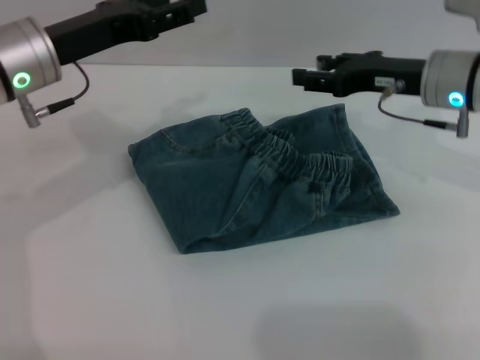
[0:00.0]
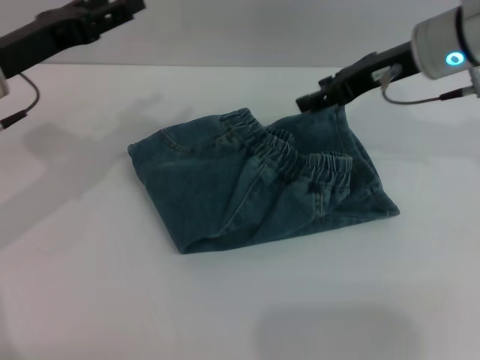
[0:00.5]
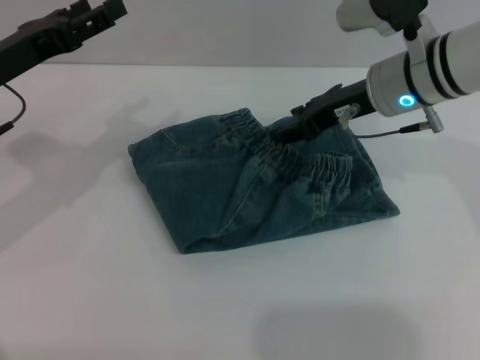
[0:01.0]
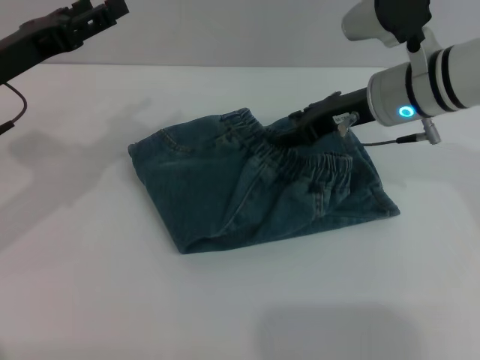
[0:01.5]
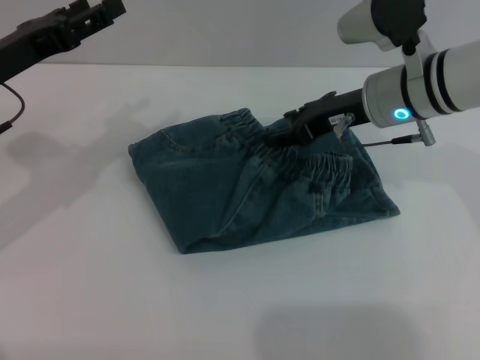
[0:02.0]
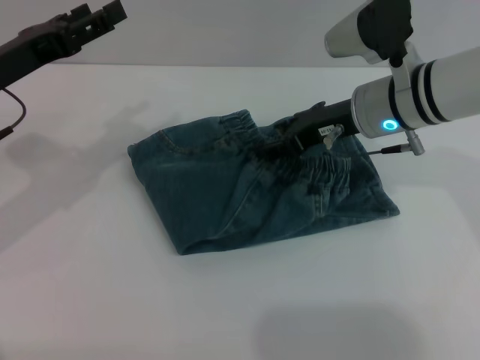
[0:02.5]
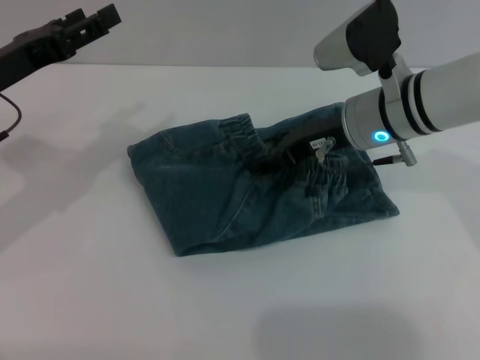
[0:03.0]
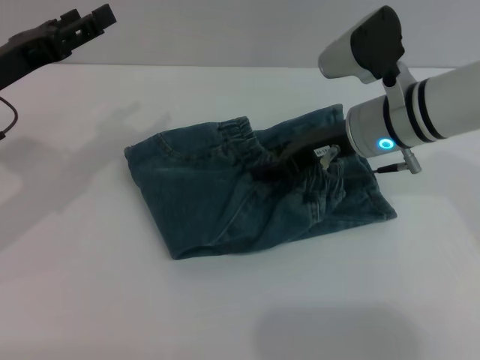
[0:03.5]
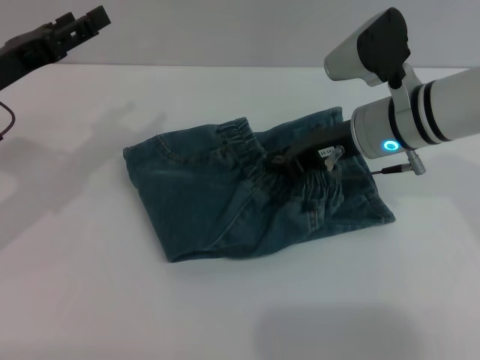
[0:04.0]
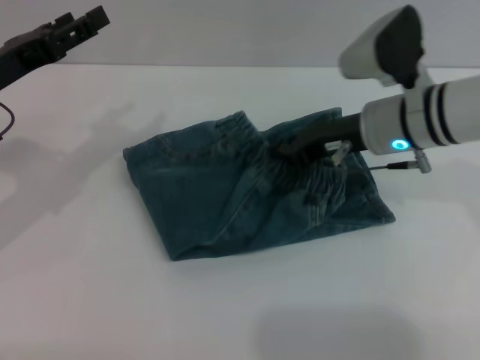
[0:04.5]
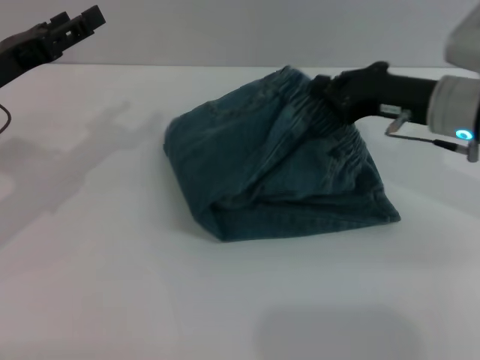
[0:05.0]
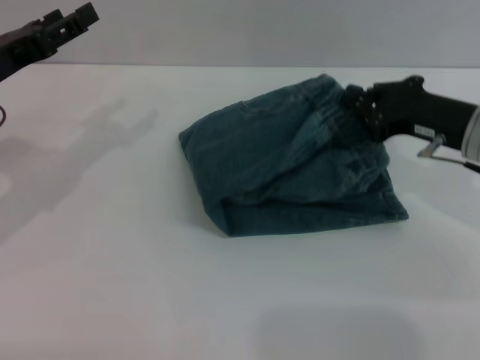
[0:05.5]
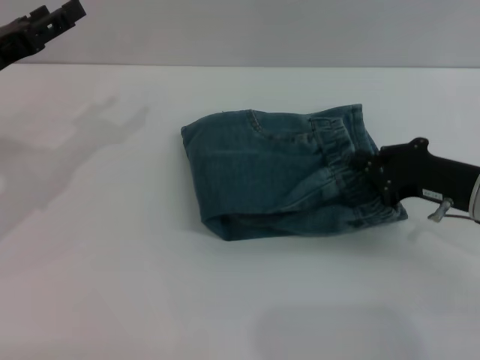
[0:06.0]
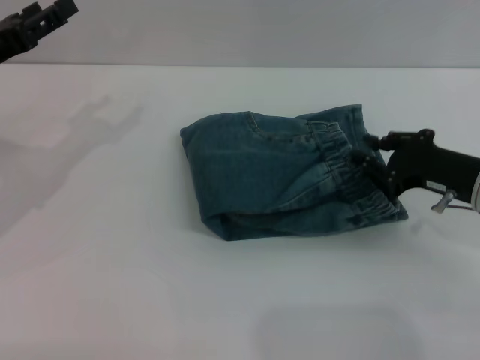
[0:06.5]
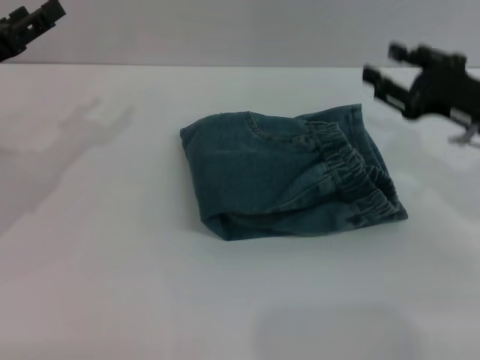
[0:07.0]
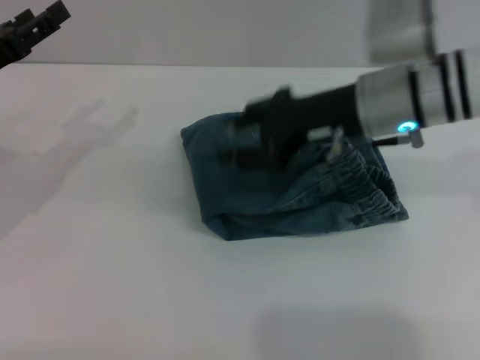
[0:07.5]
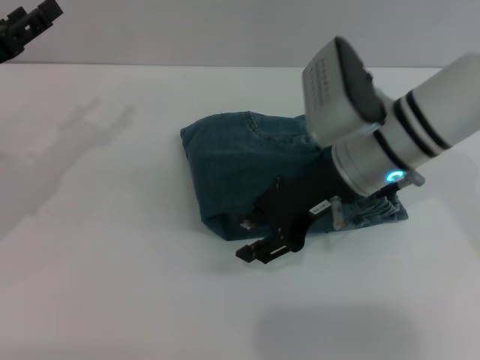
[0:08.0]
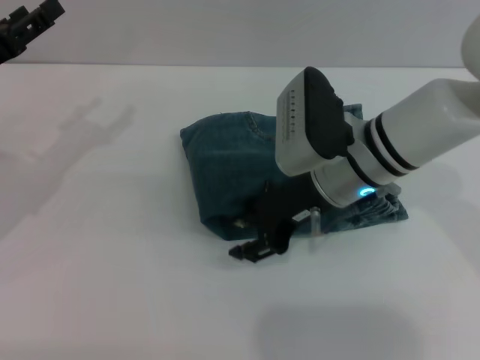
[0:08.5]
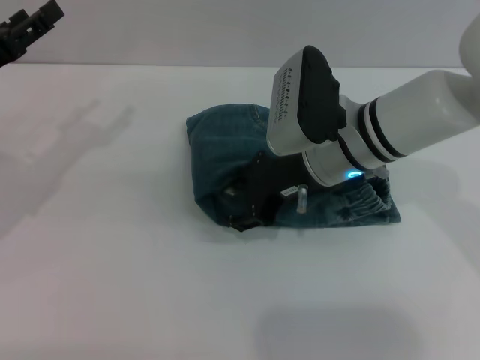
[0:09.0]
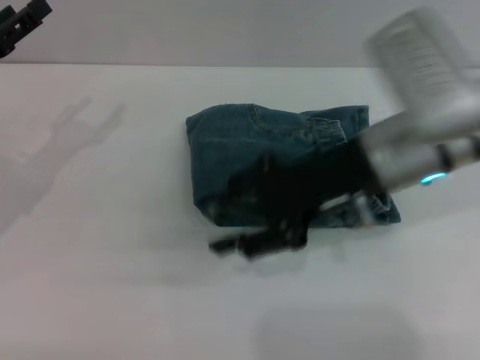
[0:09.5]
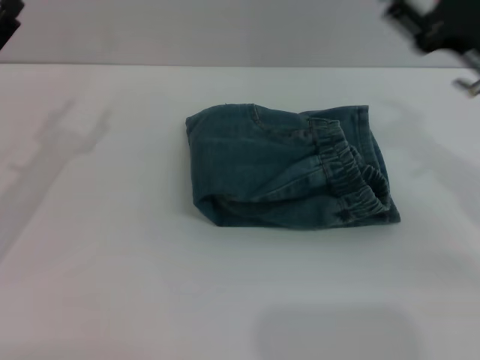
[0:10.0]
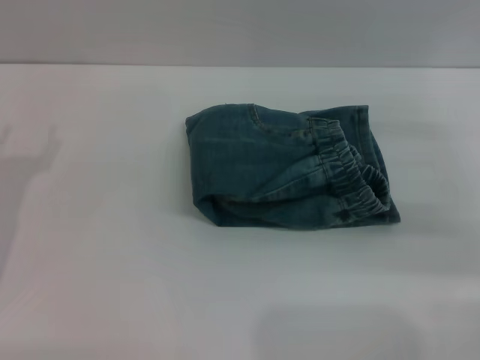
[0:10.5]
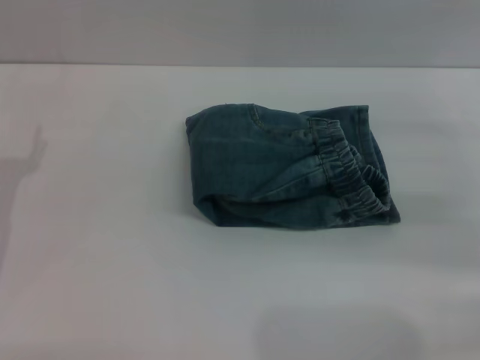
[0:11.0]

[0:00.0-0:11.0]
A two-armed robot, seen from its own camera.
Step, 0:00.0 to 0:09.0: Place the folded trousers onto the center area with the right grippers.
0:00.0 to 0:02.0: The grippers both shift to the left by about 5 cm.
0:02.0 to 0:03.5: The grippers make only small movements.
0:03.5 to 0:05.5: The right gripper shifts roughly 10 cm to the right and backward, and closes.
0:05.5 to 0:07.5: The right gripper shifts about 10 cm to the left, and opens.
0:07.5 to 0:09.0: The right gripper shifts by approximately 5 cm.
0:09.0 to 0:11.0: The left gripper travels downward and backward by approximately 10 cm. The right gripper moves to the right, some 25 cm.
